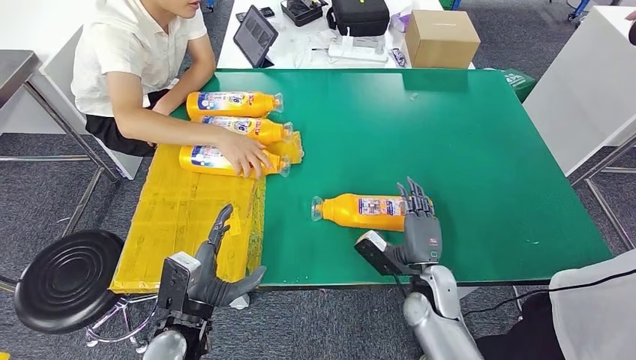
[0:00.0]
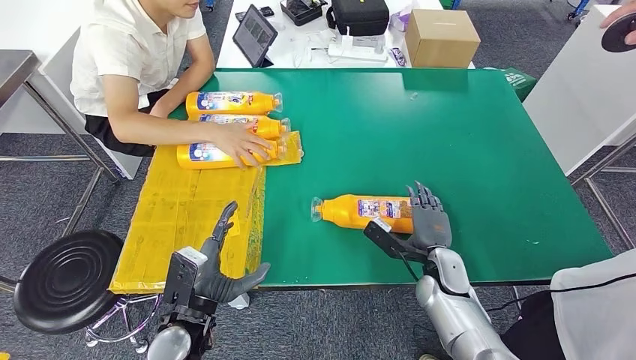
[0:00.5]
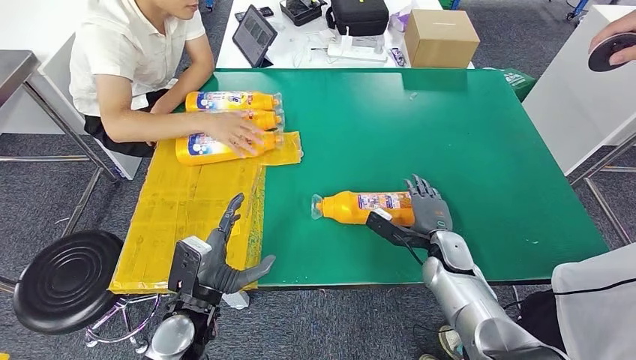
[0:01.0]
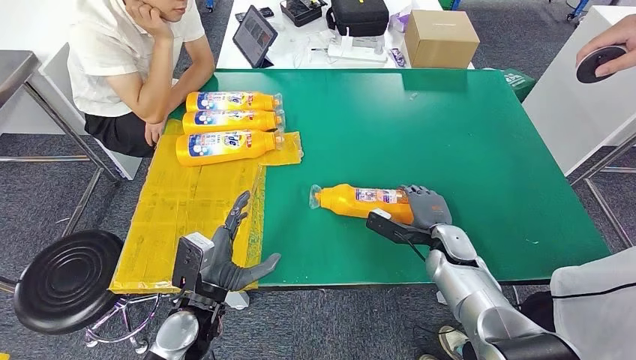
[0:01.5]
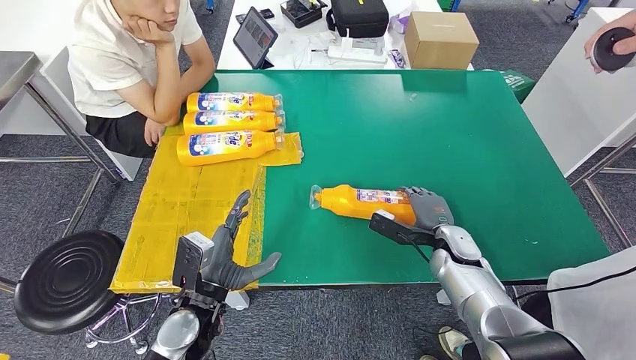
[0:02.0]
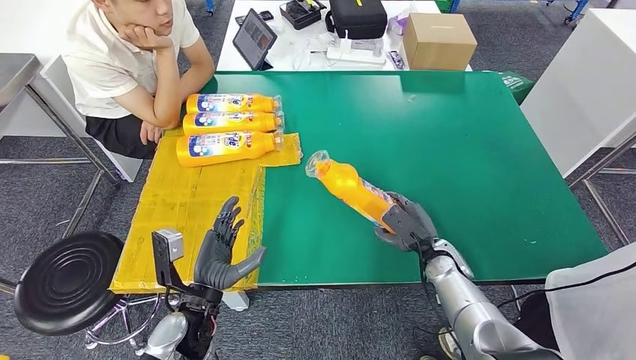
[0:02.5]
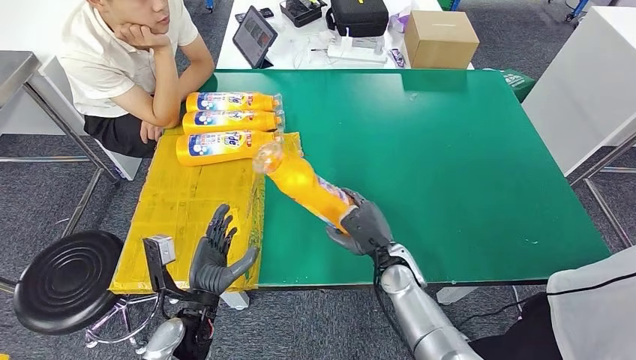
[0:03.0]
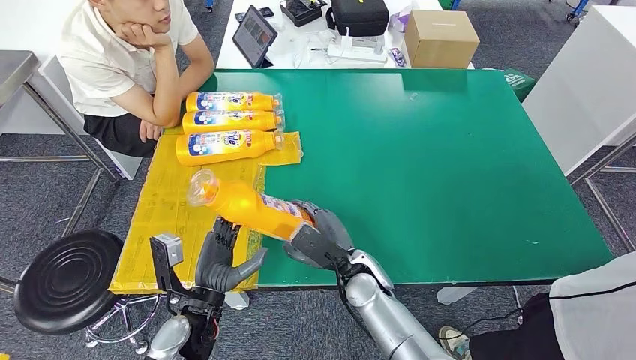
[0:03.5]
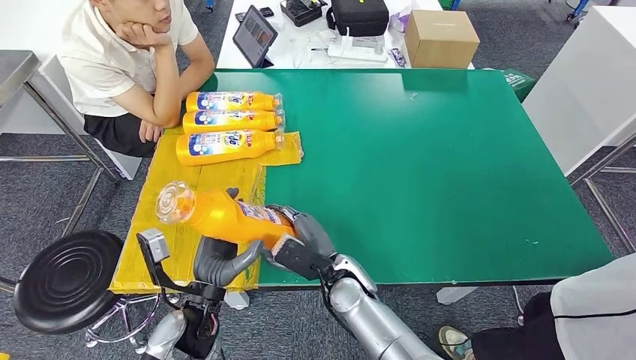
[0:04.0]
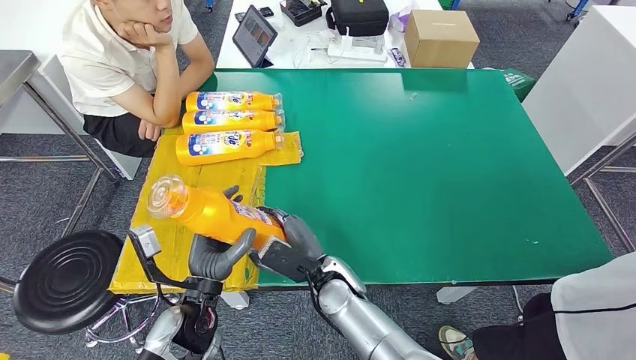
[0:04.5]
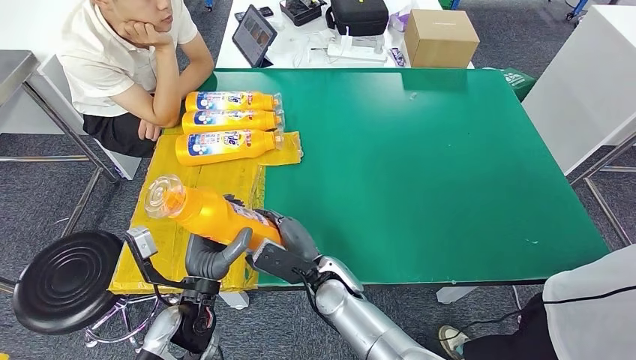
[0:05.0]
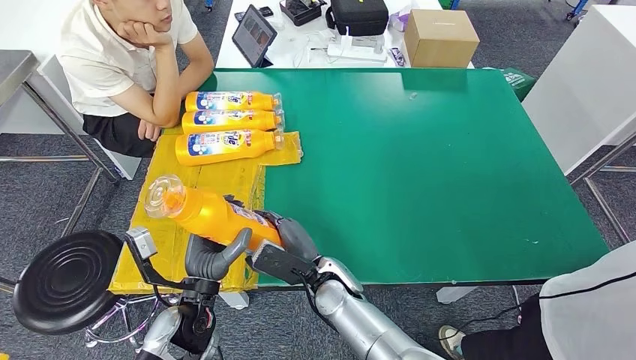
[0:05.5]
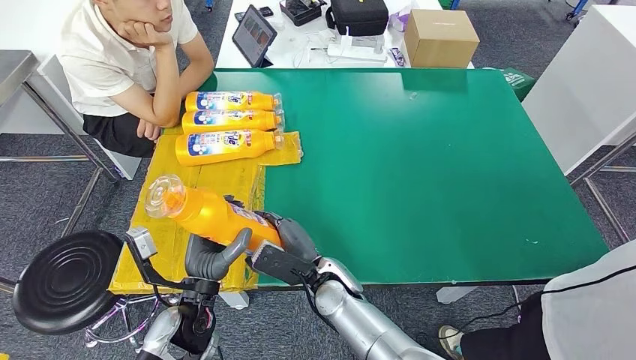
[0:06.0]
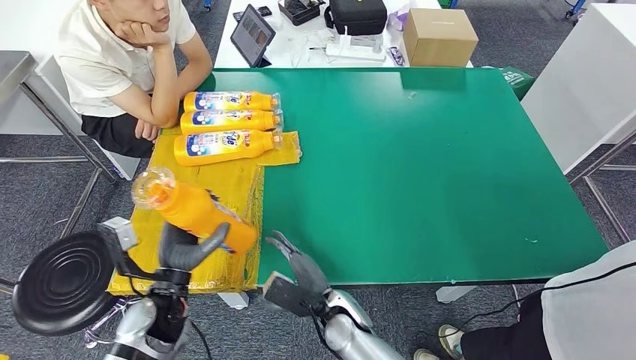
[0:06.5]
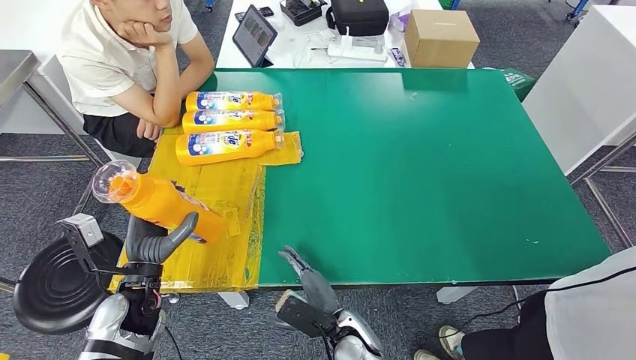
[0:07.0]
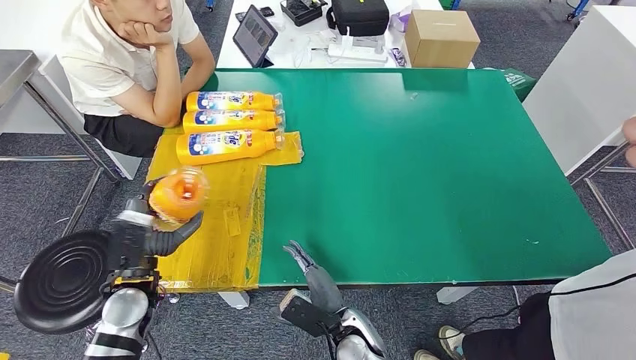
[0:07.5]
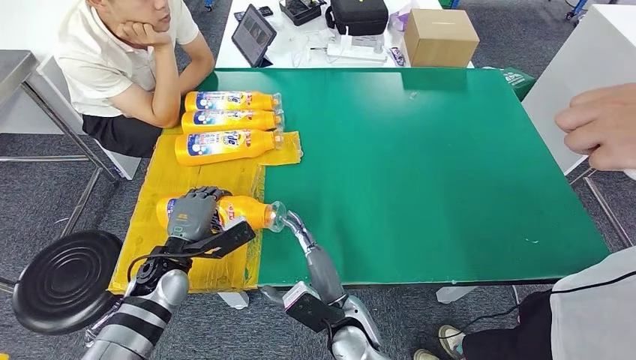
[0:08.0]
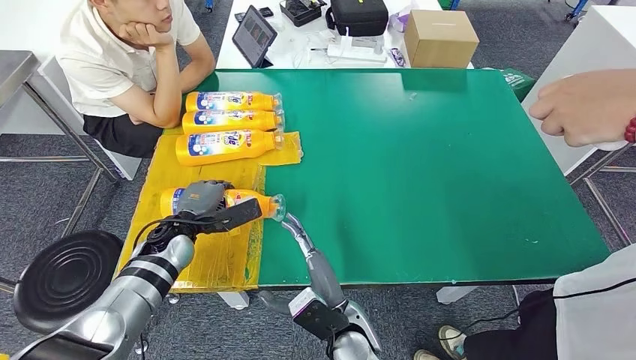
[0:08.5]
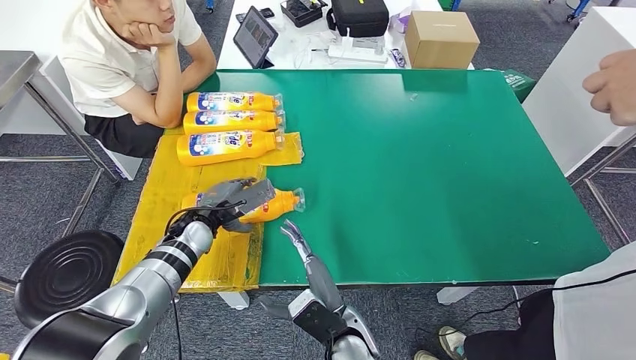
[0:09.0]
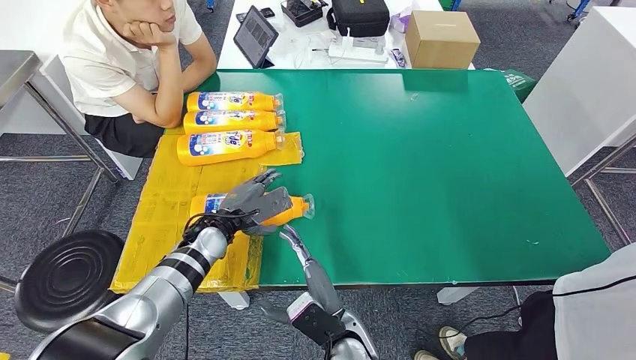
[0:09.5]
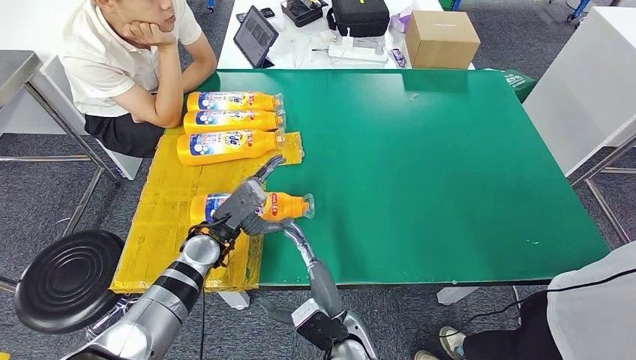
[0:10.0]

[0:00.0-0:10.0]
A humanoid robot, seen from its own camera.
Step, 0:00.0 to 0:02.5: Pick up the bottle from the table.
Step, 0:03.5 to 0:10.0: Flip the bottle to face forward.
0:04.0 to 0:06.0: There are only small adjustments of the hands.
0:06.0 to 0:08.0: The left hand is displaced forward and to the left by roughly 10 cm, while the right hand heads backward, covering approximately 5 cm.
0:08.0 to 0:10.0: The left hand heads to the right, covering roughly 5 cm.
